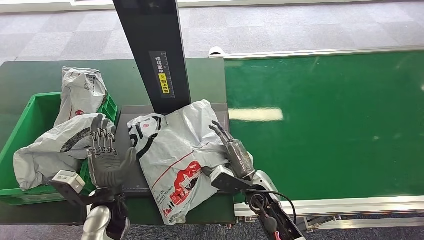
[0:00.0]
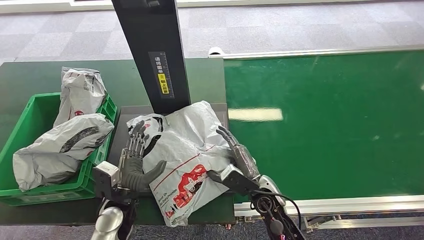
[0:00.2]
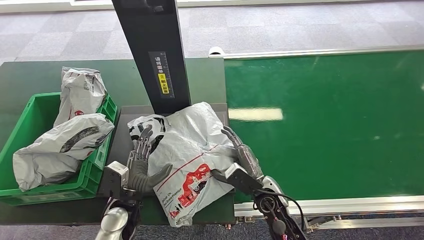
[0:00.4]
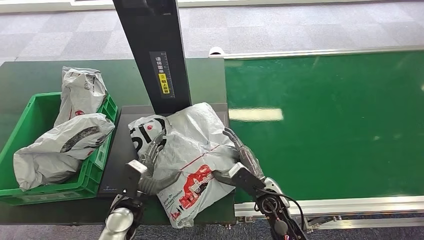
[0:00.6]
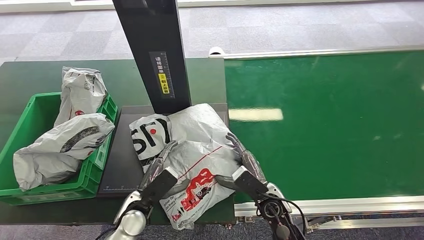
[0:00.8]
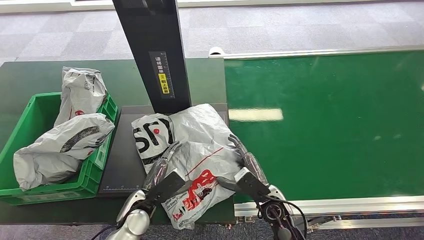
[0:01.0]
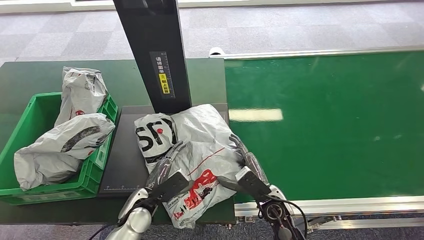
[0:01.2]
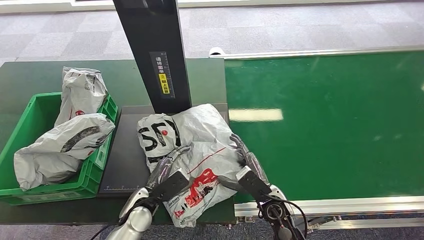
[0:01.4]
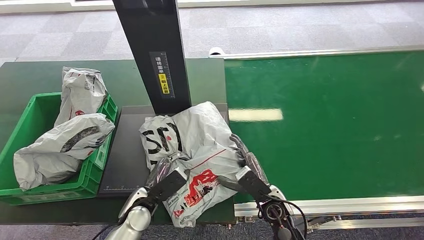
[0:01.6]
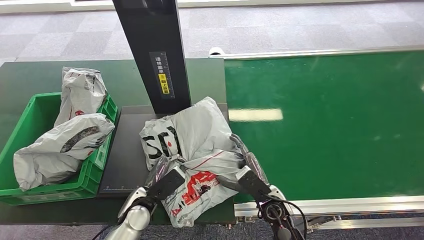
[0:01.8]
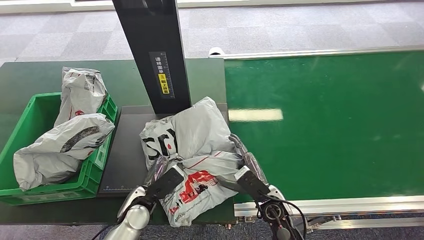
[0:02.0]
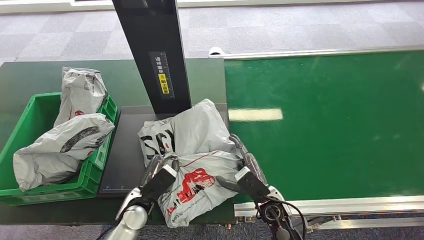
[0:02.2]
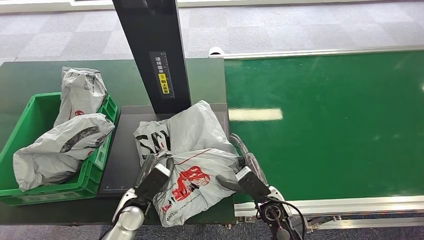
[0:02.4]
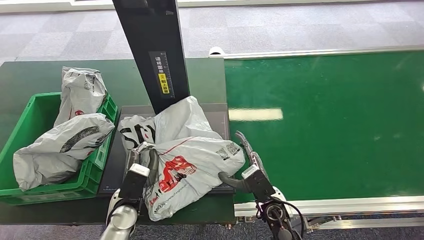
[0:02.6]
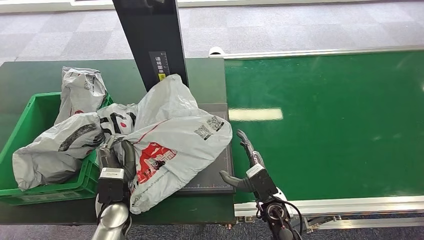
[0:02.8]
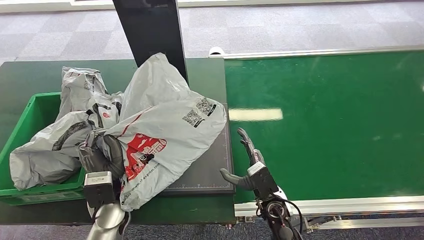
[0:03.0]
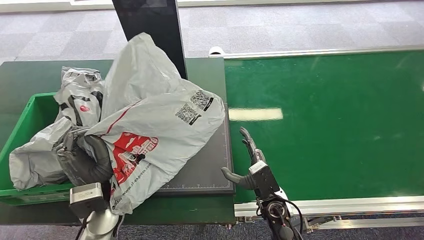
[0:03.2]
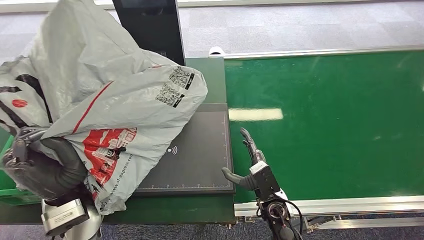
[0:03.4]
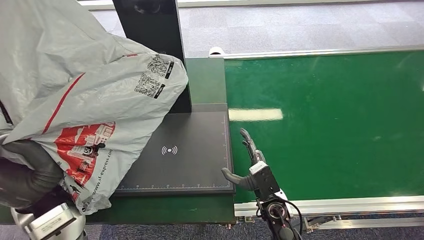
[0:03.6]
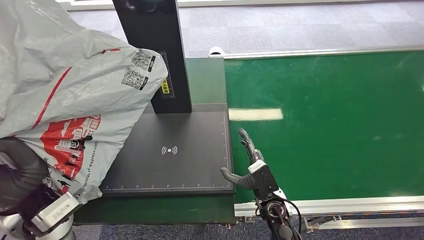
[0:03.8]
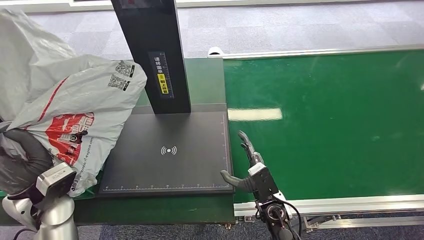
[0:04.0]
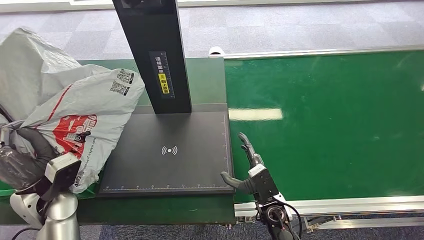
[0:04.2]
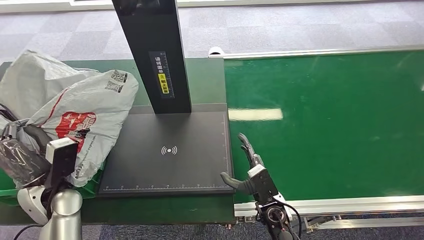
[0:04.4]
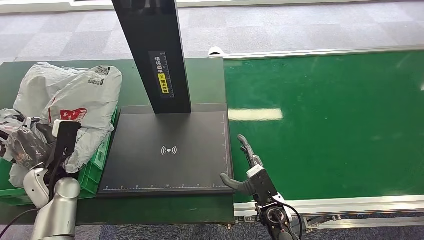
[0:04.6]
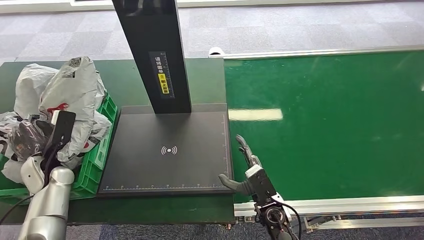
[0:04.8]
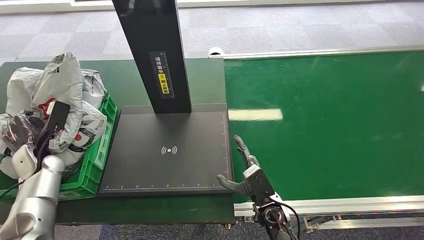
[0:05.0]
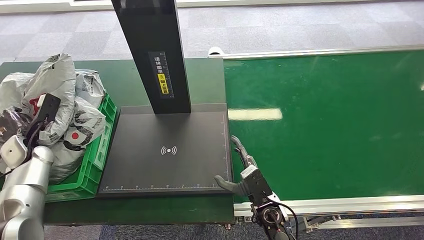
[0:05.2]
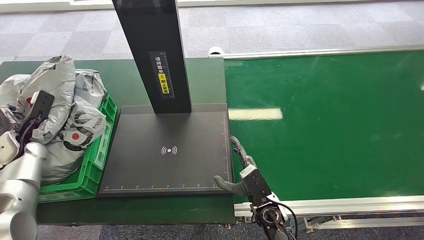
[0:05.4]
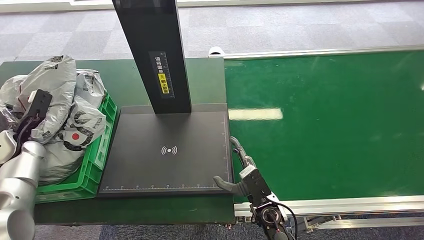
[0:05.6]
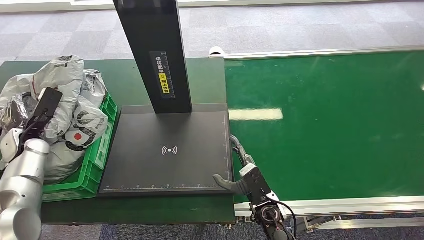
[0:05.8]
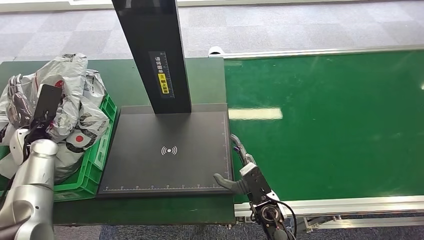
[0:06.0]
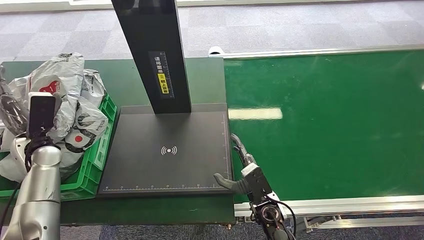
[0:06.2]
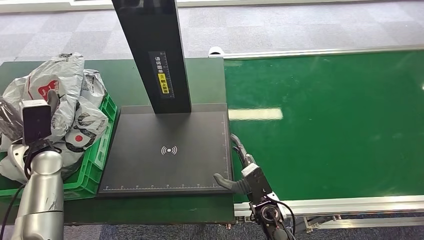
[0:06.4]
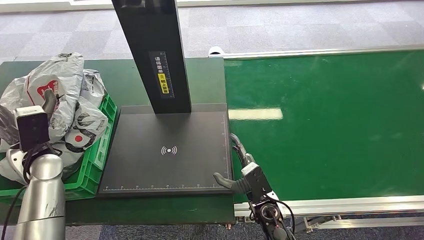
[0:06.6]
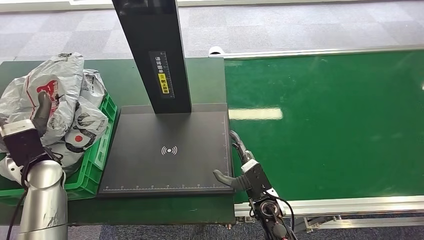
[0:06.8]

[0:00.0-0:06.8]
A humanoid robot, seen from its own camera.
Step, 0:01.8 to 0:03.2: Pick up the package from the inbound machine.
Step, 0:03.4 to 0:06.8: Place the package into the parcel locker.
0:00.0 to 0:01.4: The right hand changes place by roughly 5 cm. The left hand travels downward by approximately 5 cm.
0:01.4 to 0:02.8: The left hand shifts by roughly 5 cm.
0:05.4 to 0:06.8: The left hand shifts some 15 cm to the right and backward.
